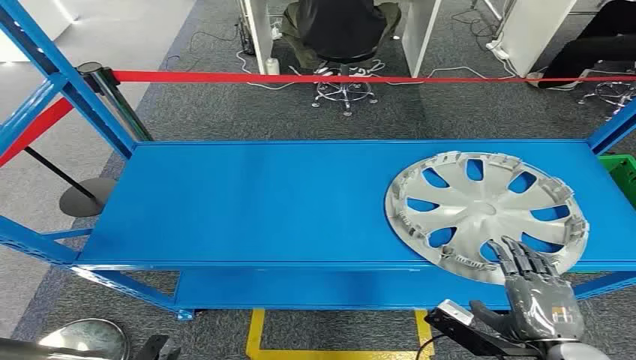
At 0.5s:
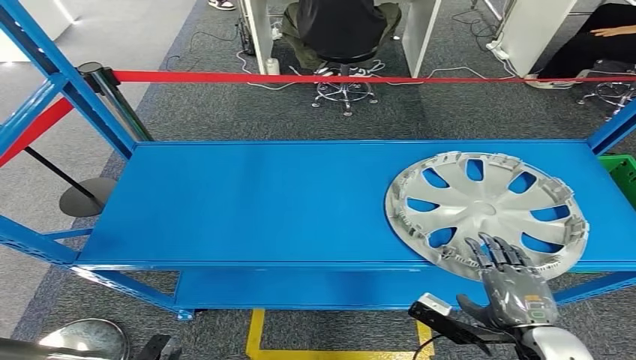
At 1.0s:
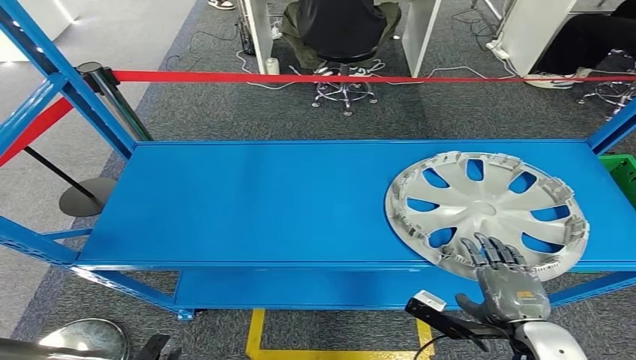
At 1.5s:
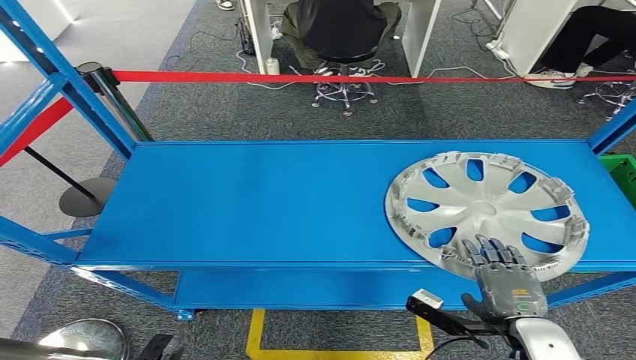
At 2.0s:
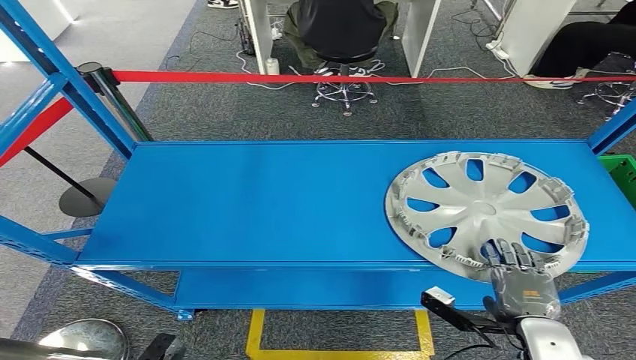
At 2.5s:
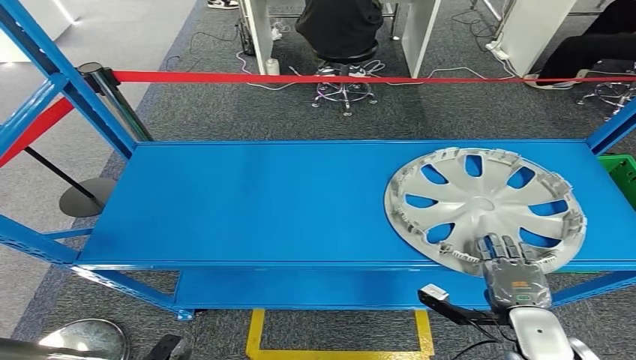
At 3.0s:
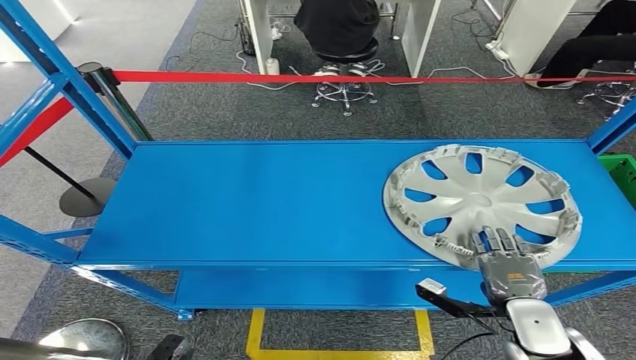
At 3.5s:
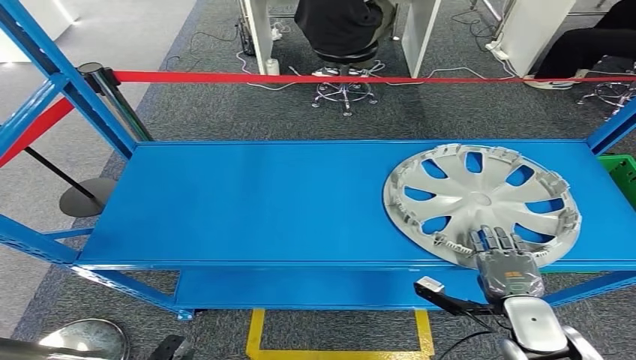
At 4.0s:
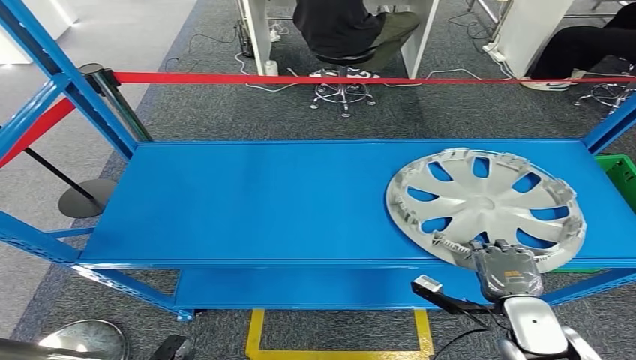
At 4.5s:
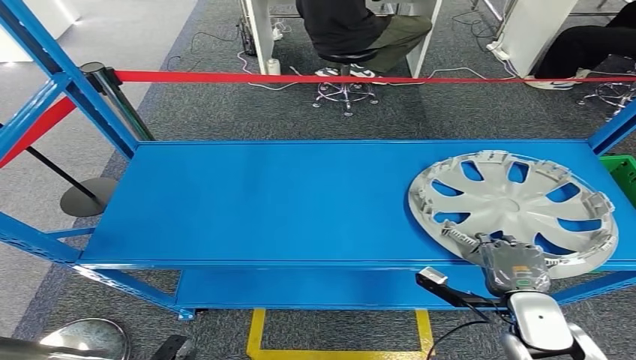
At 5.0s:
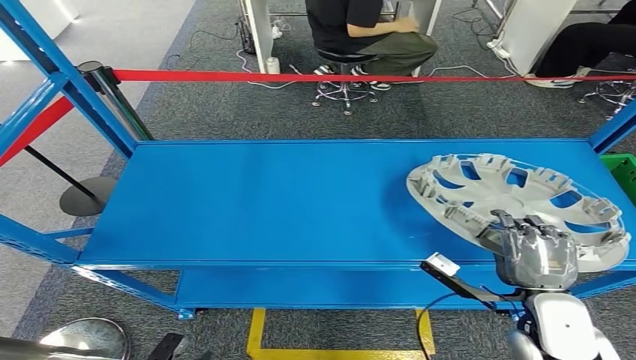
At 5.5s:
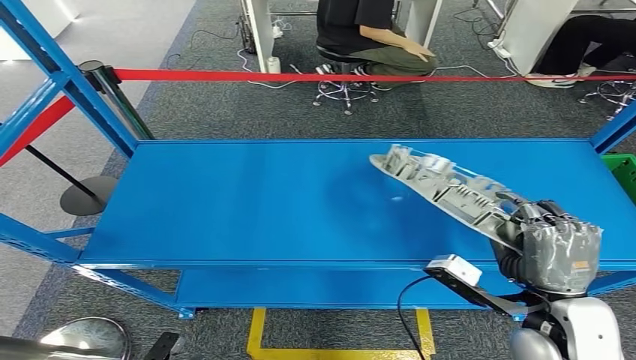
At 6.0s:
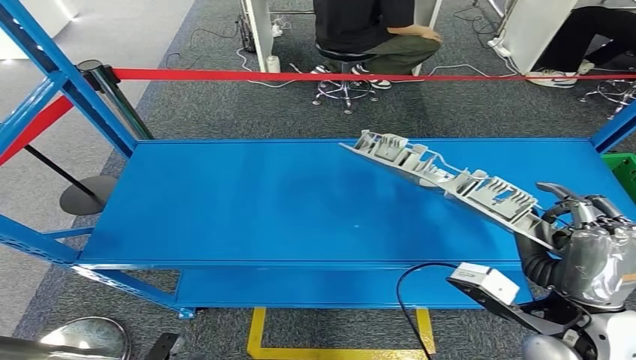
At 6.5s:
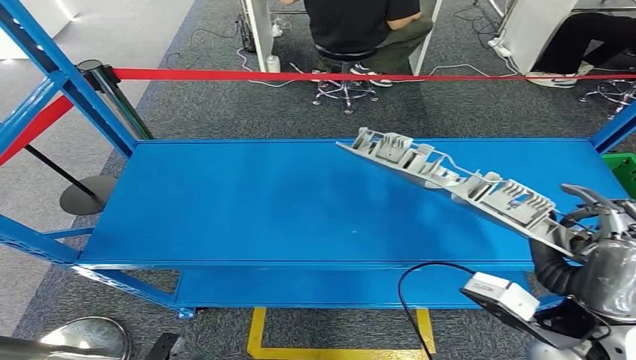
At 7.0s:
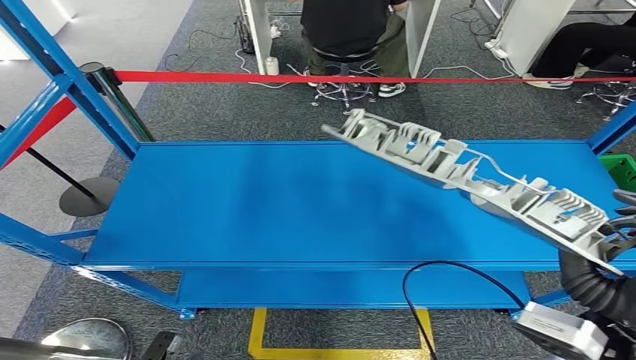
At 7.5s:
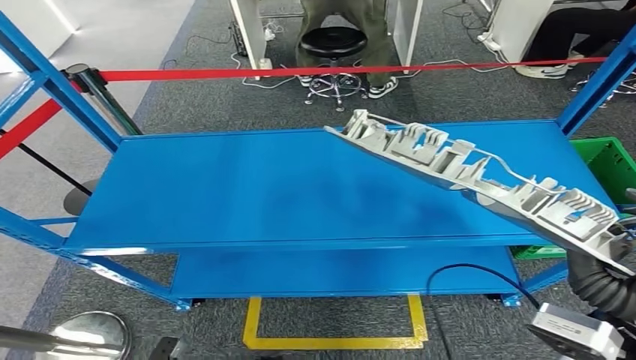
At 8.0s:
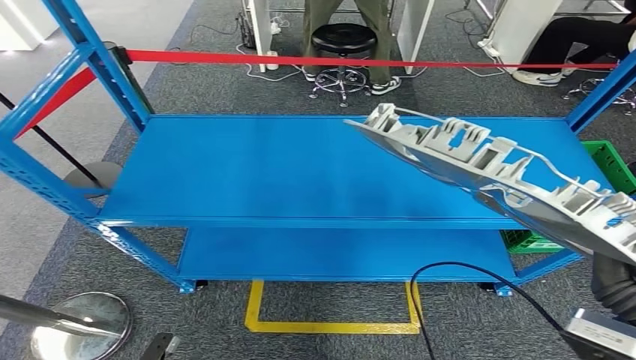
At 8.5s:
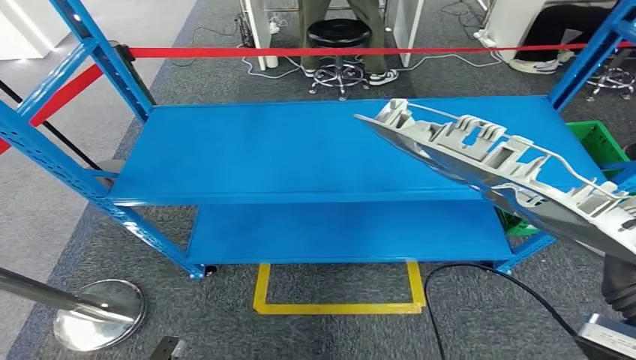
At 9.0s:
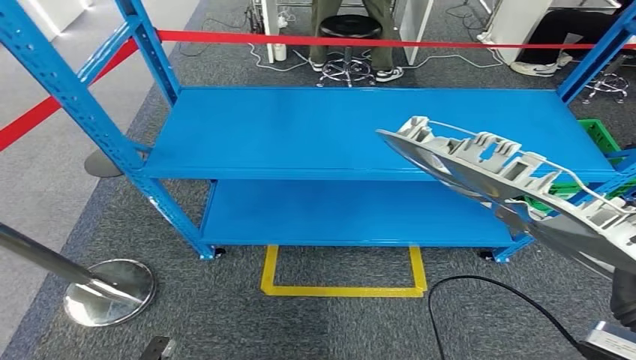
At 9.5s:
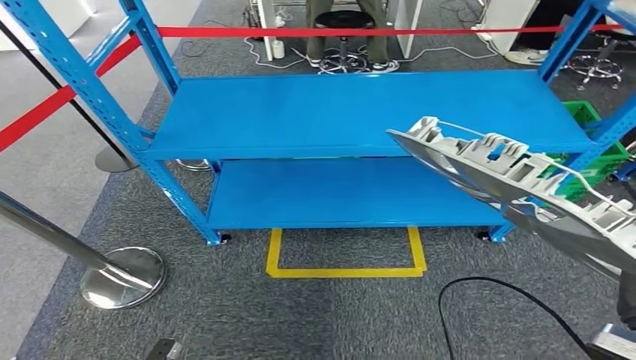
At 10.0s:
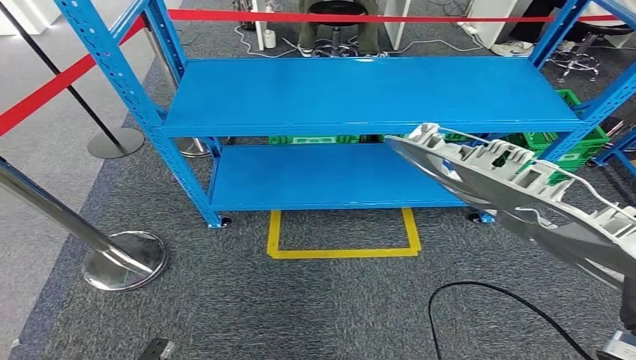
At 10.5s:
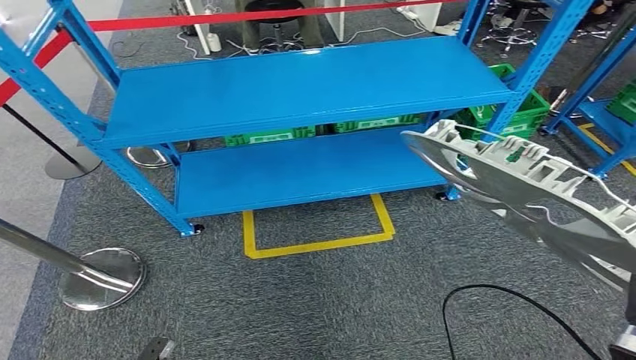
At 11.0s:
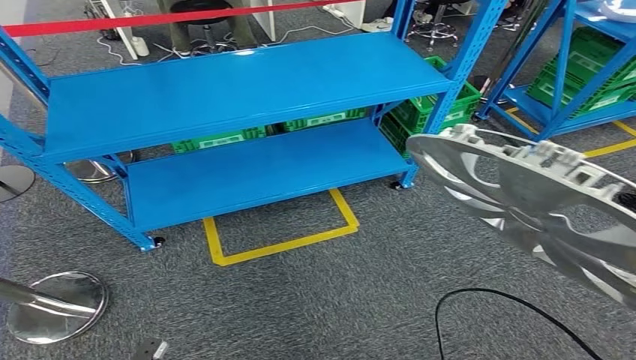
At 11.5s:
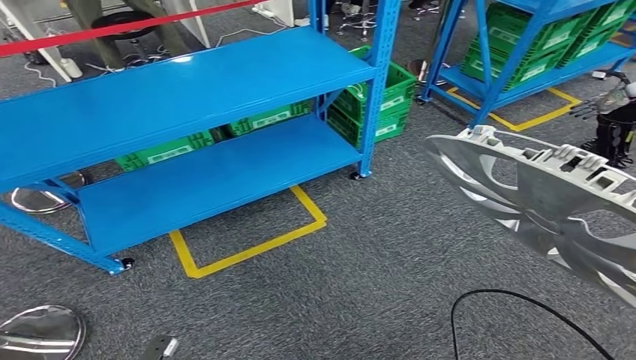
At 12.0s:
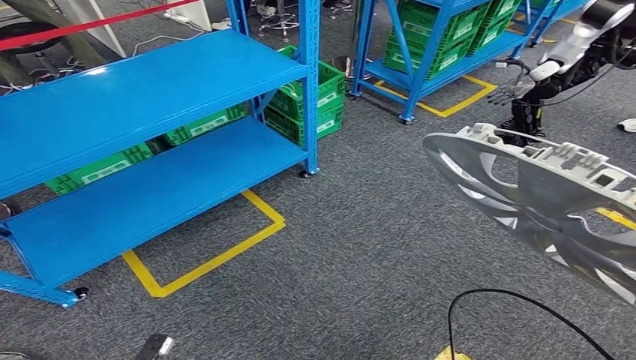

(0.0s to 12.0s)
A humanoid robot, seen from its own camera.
Step, 0.0s - 8.5s: Pick up the small component from the shelf.
2.0s - 4.0s: There are only small adjustments of the hands.

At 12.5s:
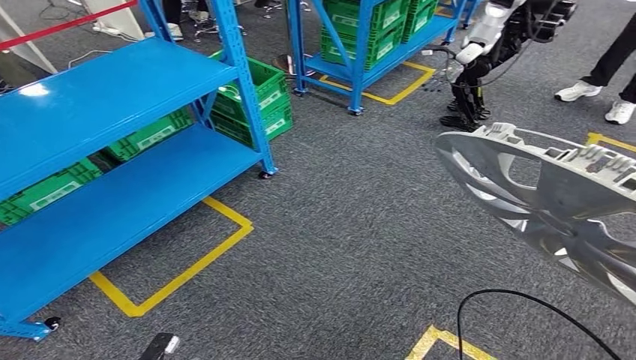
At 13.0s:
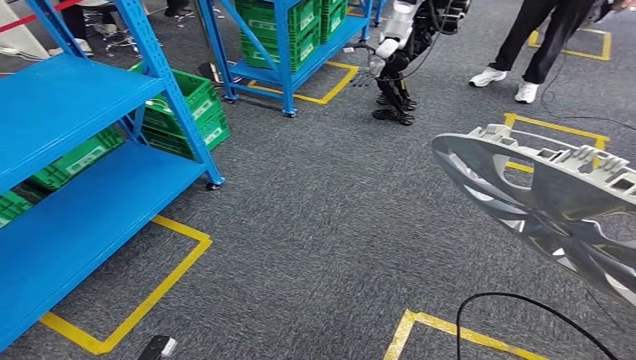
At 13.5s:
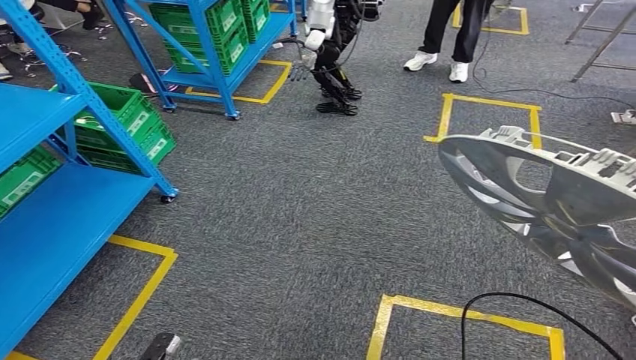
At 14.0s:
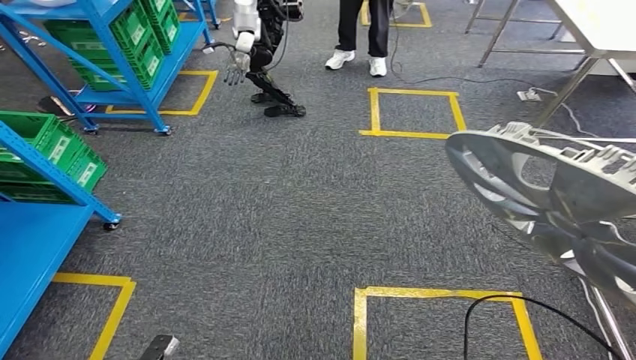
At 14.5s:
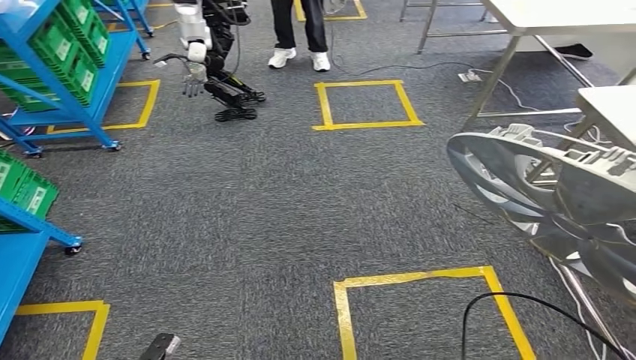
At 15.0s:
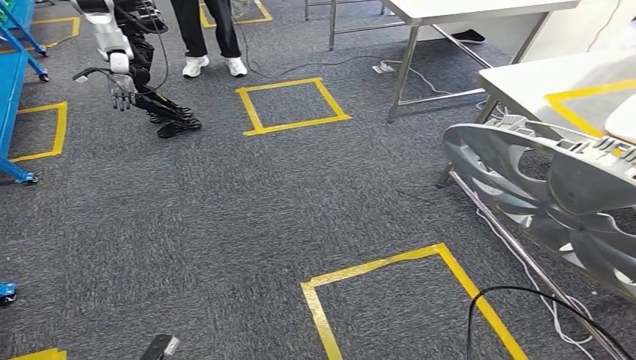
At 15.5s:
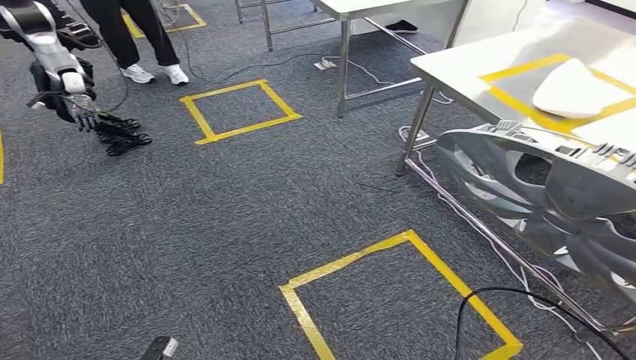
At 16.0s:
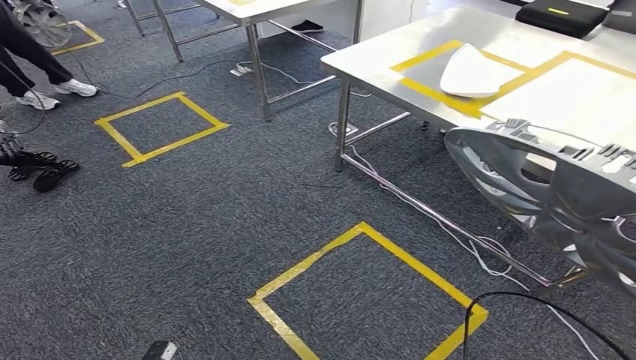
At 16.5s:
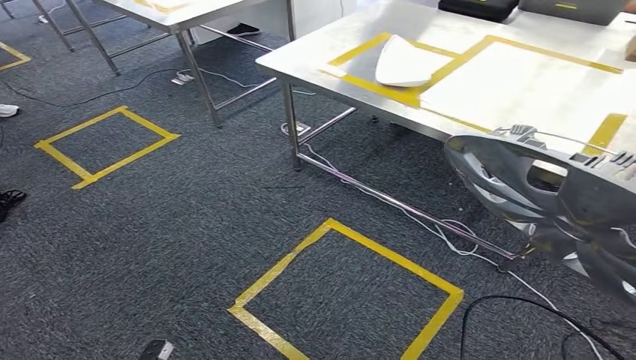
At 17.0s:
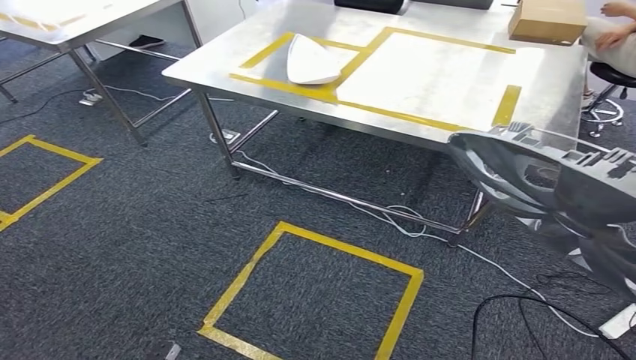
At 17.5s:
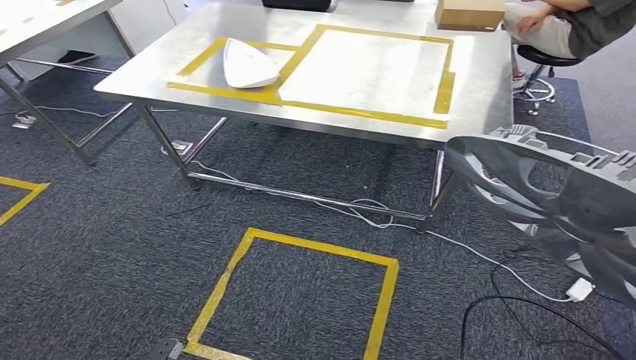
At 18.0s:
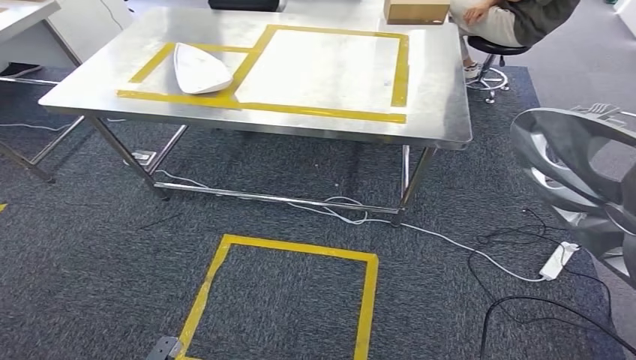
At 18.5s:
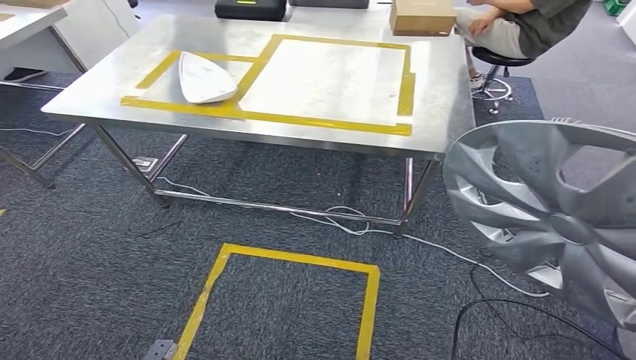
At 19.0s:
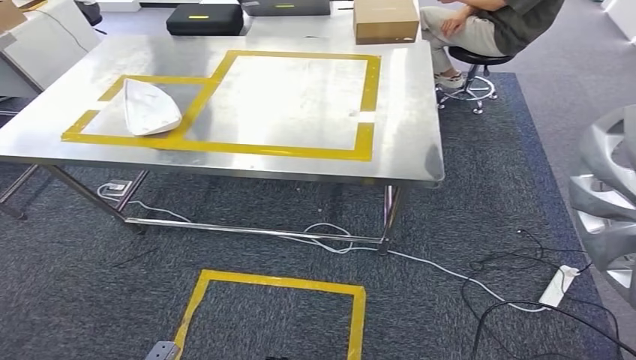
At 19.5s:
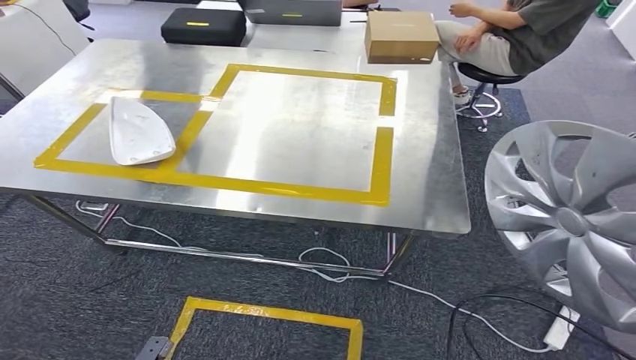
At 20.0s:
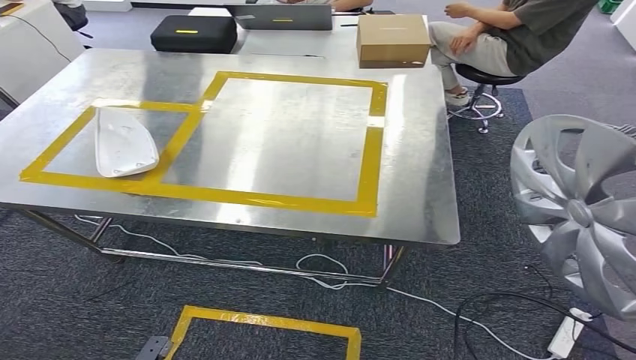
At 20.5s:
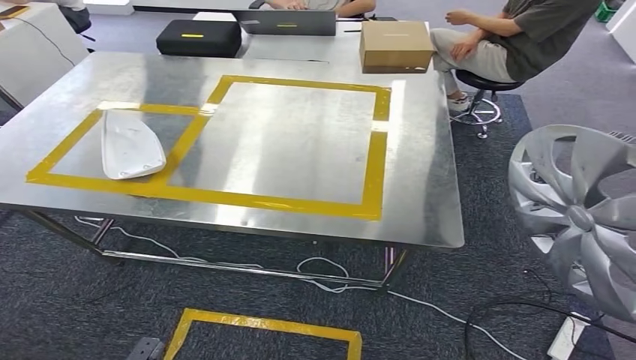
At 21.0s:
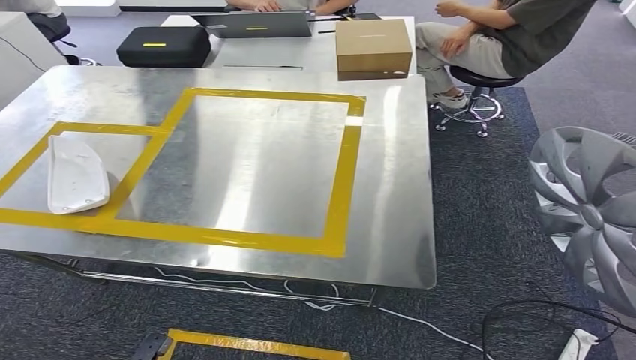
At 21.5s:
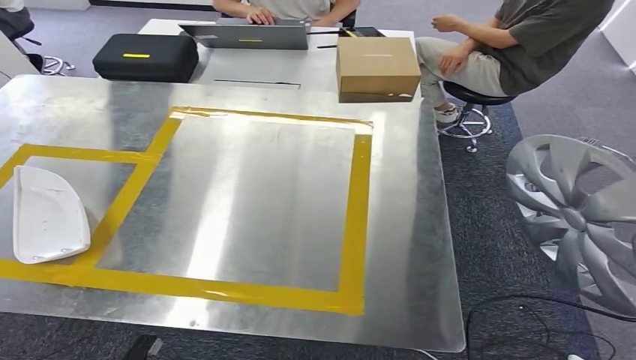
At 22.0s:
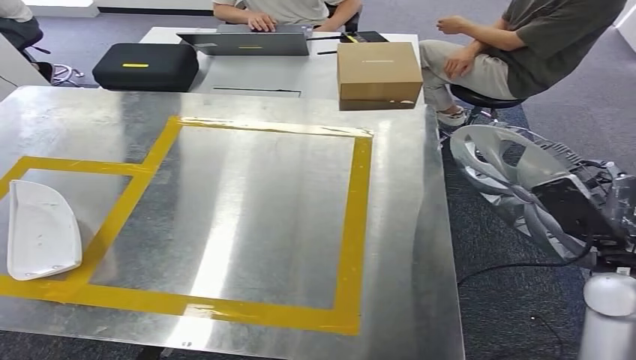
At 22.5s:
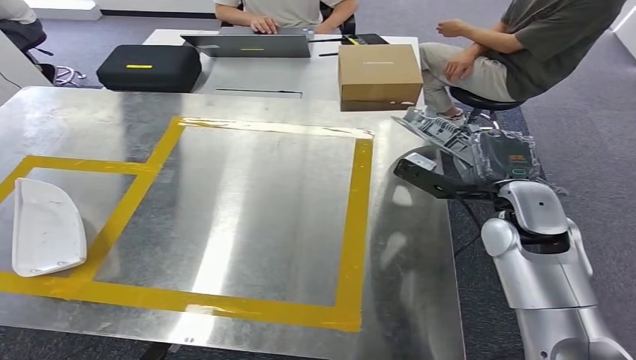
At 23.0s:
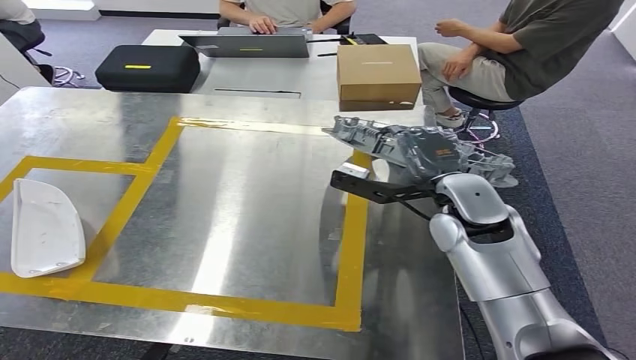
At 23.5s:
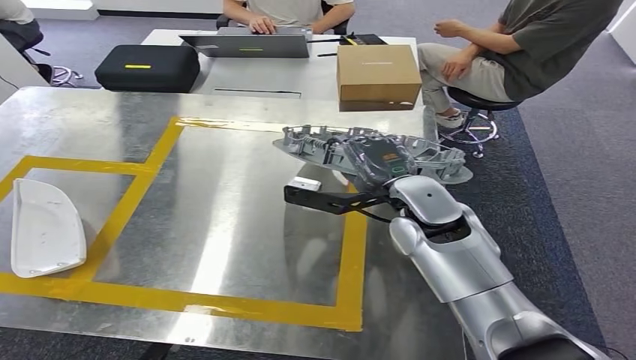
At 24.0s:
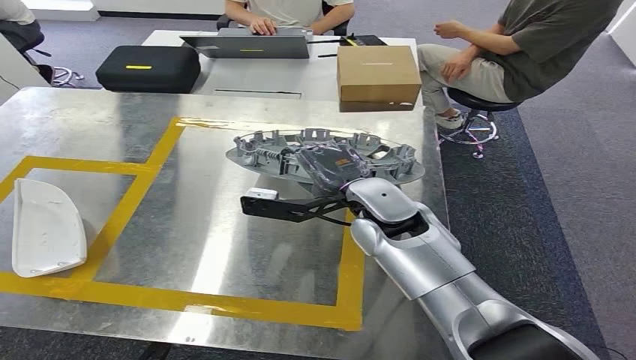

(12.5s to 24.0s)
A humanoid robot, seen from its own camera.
Step, 12.5s - 20.0s: Move the small component to the workbench.
